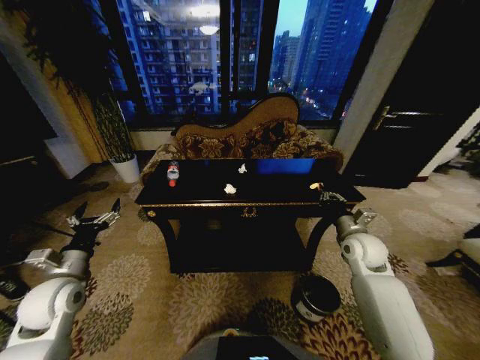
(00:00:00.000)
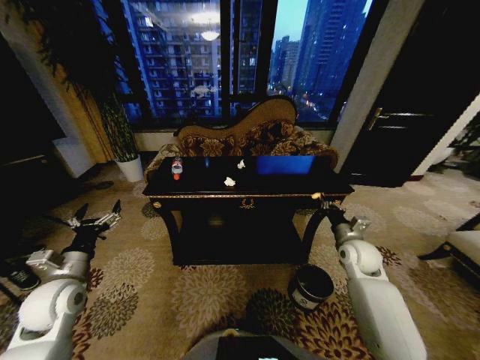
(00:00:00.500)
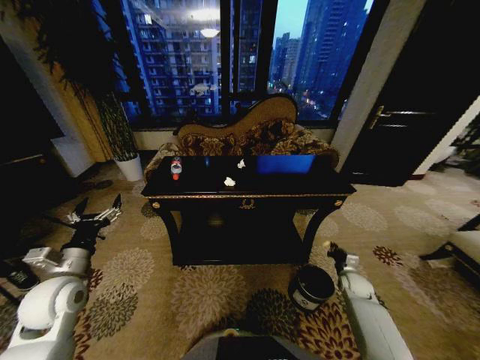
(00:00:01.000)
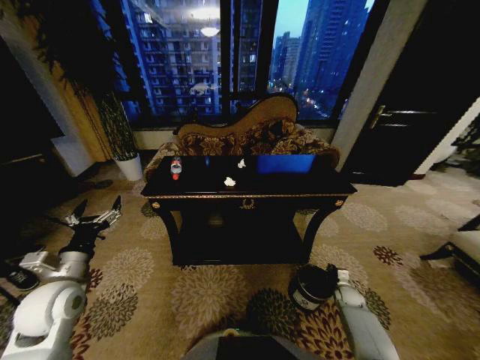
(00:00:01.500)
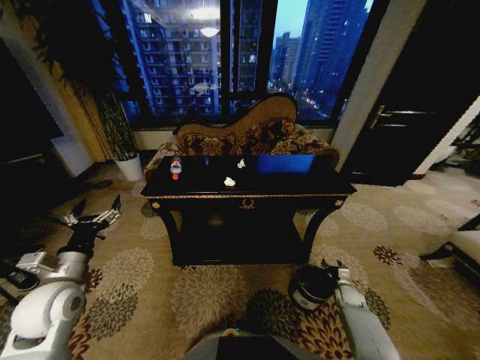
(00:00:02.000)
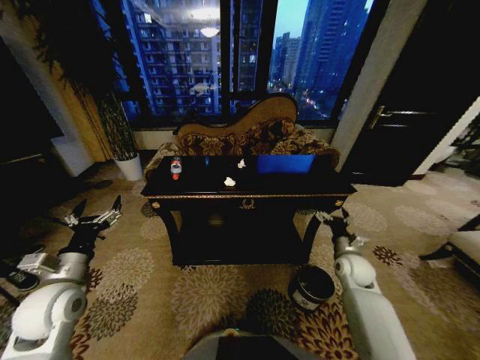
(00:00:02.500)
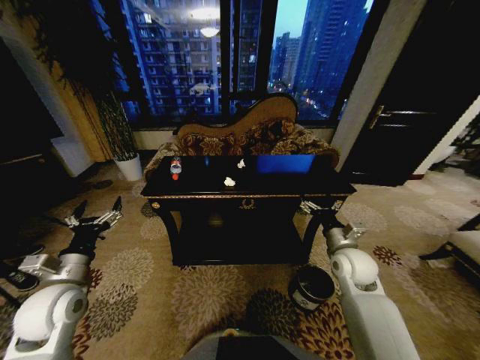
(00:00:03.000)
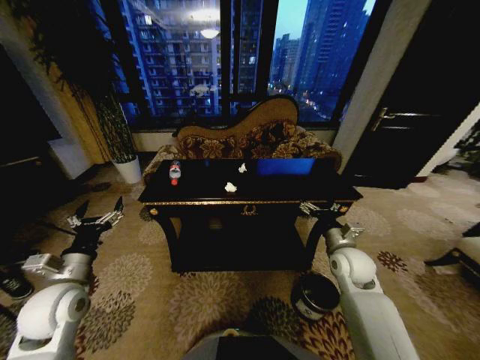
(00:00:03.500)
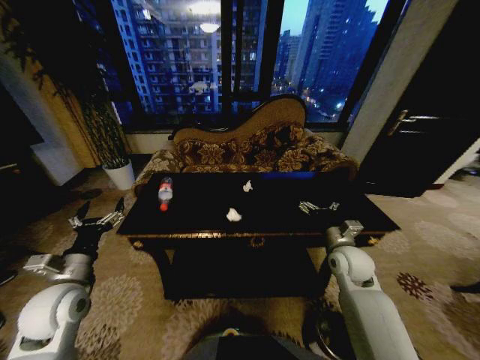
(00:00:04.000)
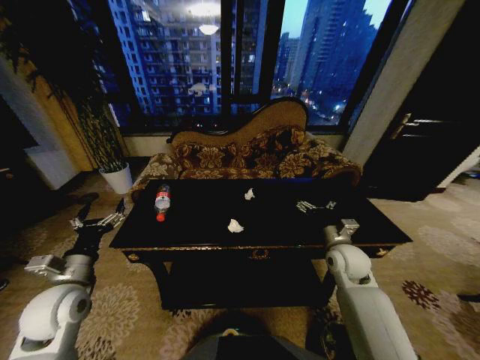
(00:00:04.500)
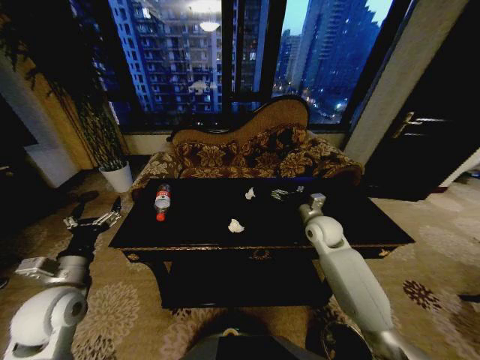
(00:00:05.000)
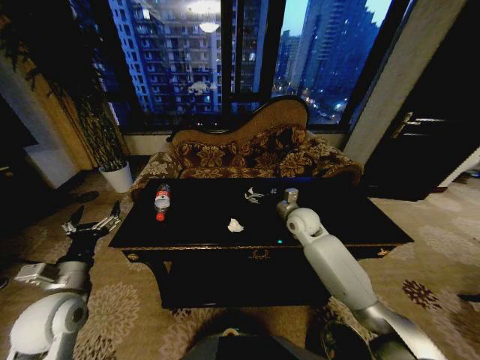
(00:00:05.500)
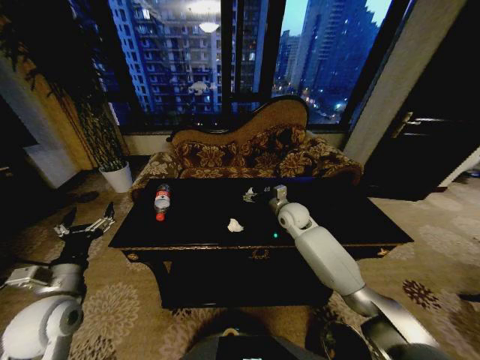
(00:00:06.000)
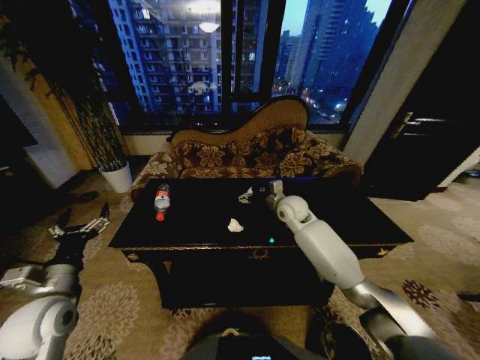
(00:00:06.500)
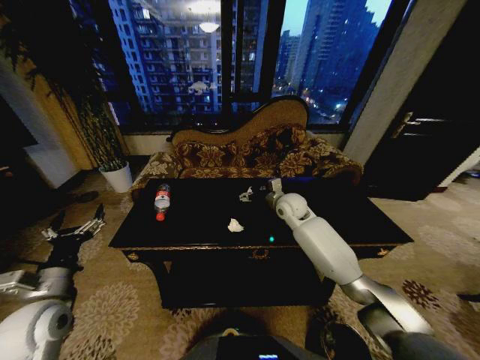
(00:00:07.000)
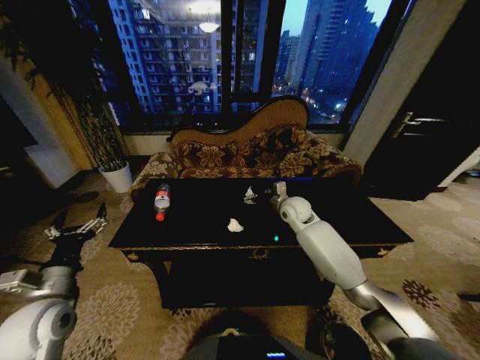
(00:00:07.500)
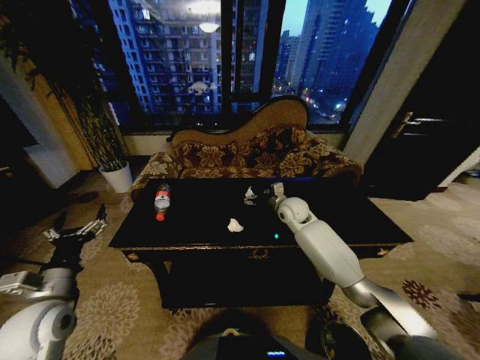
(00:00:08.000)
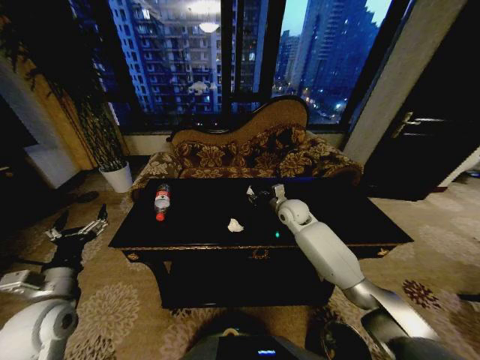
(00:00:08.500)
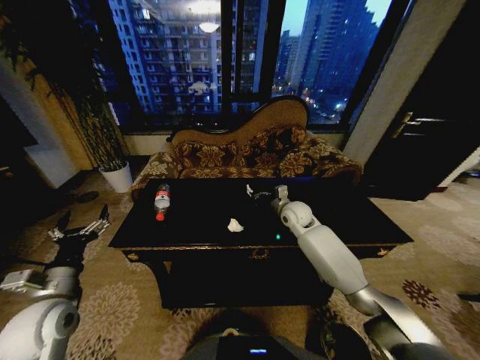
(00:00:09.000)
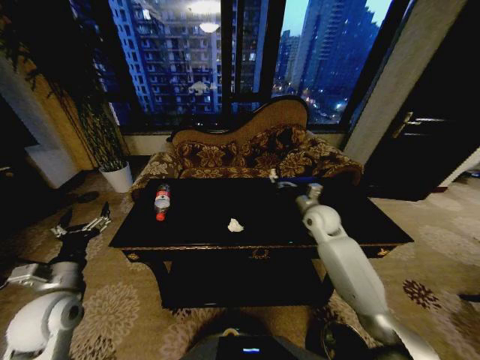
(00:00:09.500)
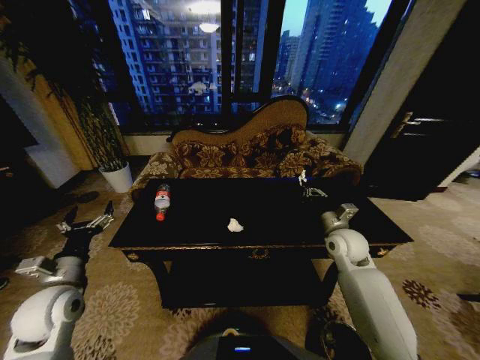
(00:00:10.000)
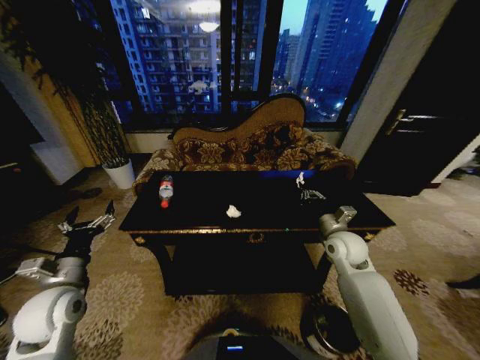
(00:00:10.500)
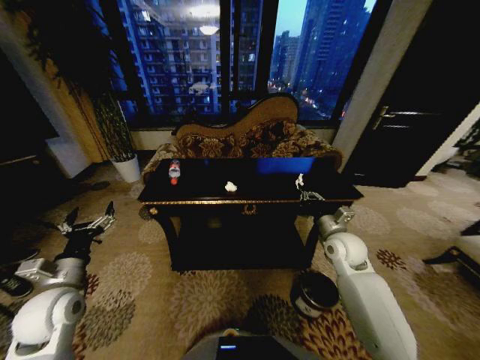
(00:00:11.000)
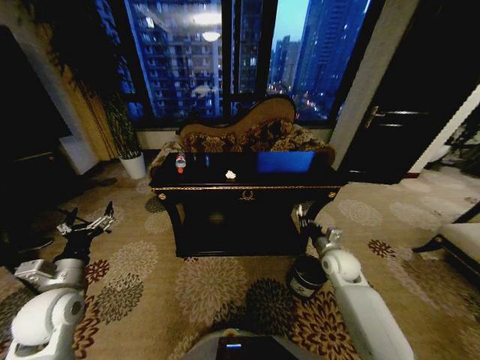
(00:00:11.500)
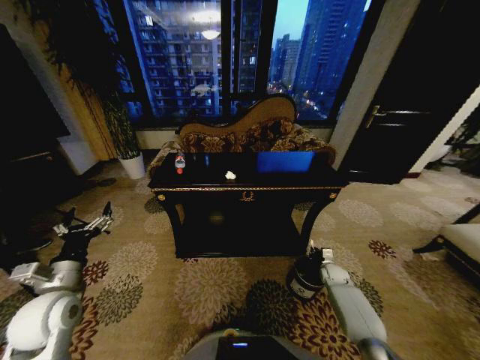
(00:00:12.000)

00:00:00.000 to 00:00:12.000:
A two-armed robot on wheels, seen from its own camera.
Task of the whole recording: Move to the front of the table and place the trash on the table into the trash bin.
00:00:00.000 to 00:00:02.000: The right gripper moves downward, roughly 30 cm, and opens.
00:00:02.000 to 00:00:04.000: The right gripper goes approximately 30 cm upward and to the left, and opens its fingers.
00:00:04.000 to 00:00:06.000: The right gripper is displaced forward and to the left by approximately 20 cm.
00:00:06.000 to 00:00:08.000: The grippers move only a little.
00:00:08.000 to 00:00:10.000: The right gripper moves backward and to the right, approximately 20 cm, and closes.
00:00:10.000 to 00:00:12.000: The right gripper heads downward, covering roughly 25 cm.

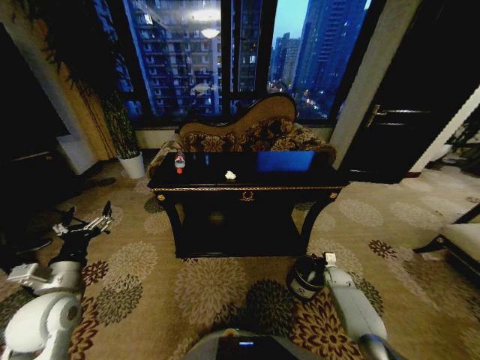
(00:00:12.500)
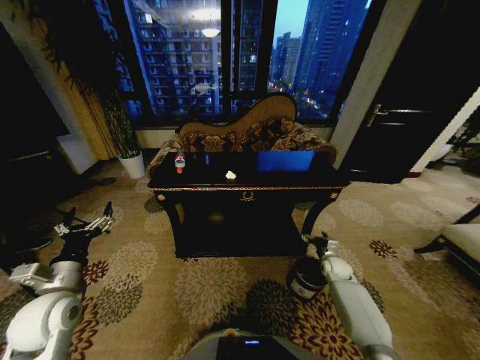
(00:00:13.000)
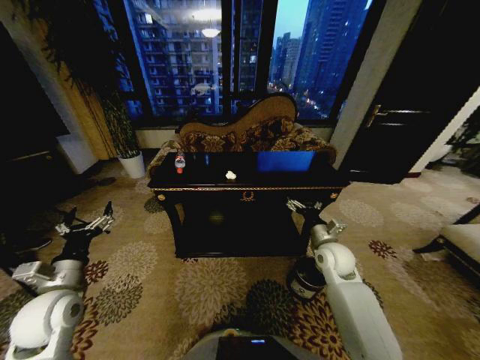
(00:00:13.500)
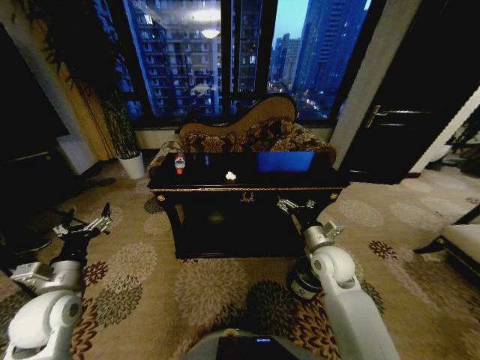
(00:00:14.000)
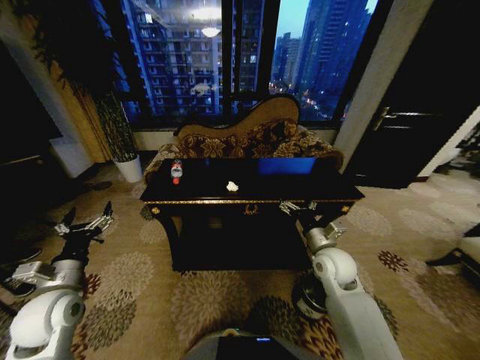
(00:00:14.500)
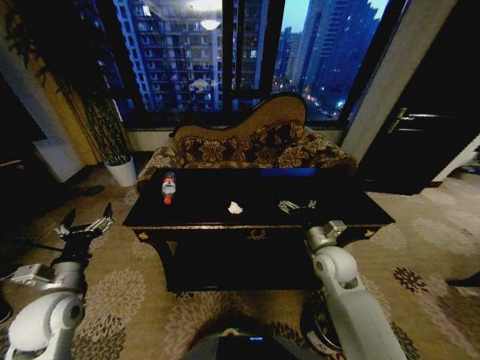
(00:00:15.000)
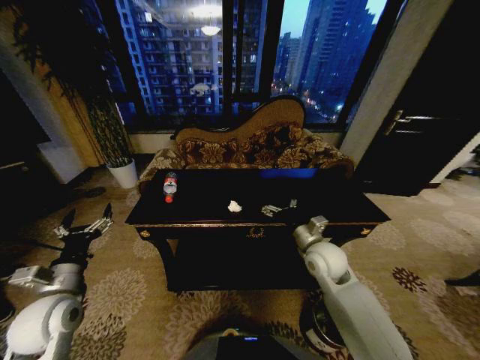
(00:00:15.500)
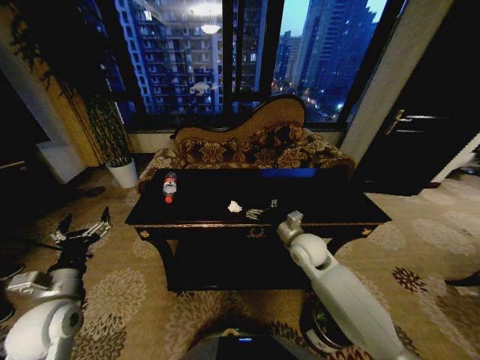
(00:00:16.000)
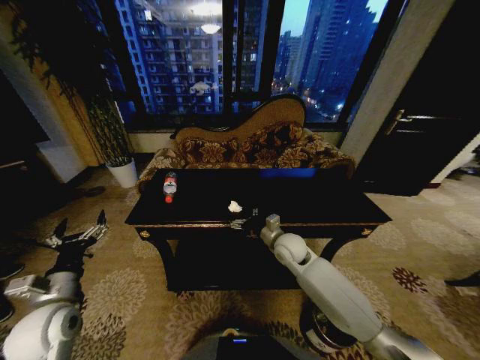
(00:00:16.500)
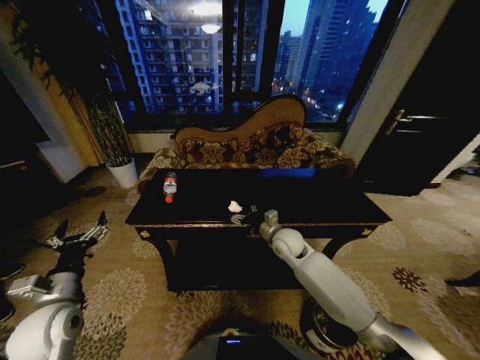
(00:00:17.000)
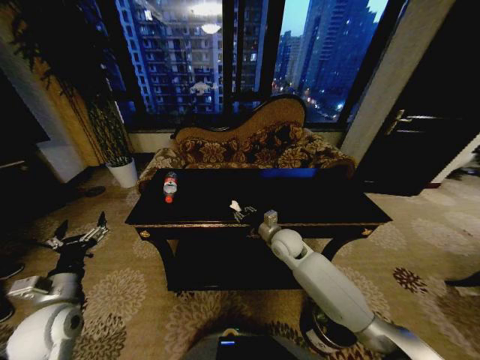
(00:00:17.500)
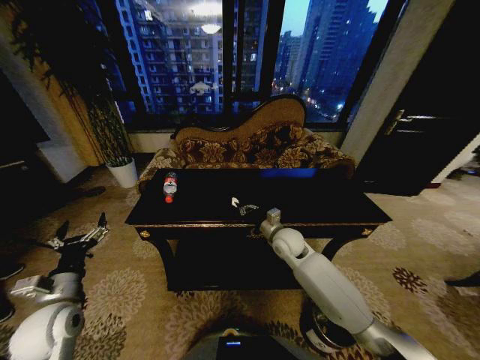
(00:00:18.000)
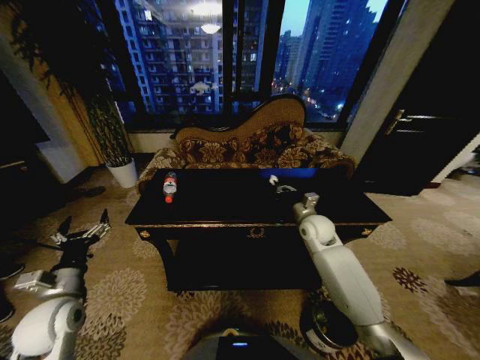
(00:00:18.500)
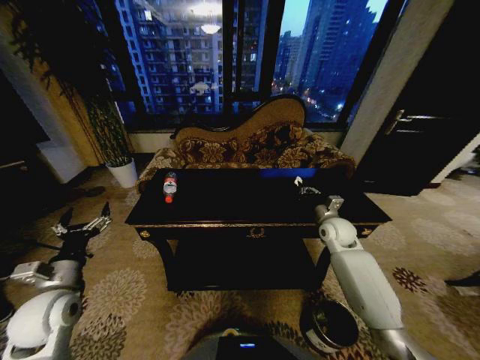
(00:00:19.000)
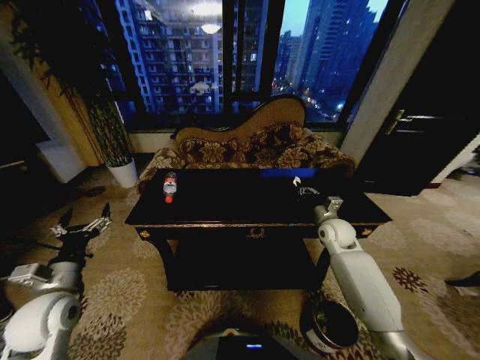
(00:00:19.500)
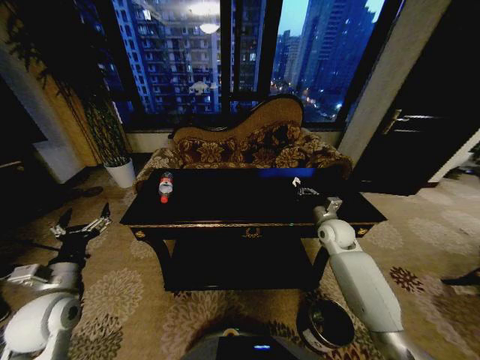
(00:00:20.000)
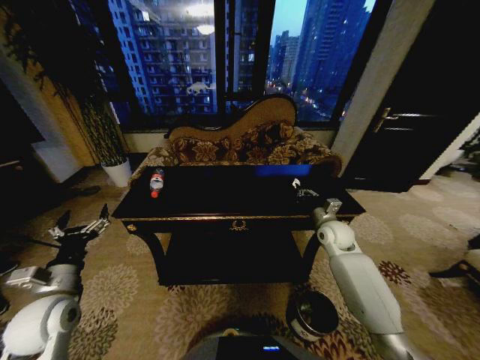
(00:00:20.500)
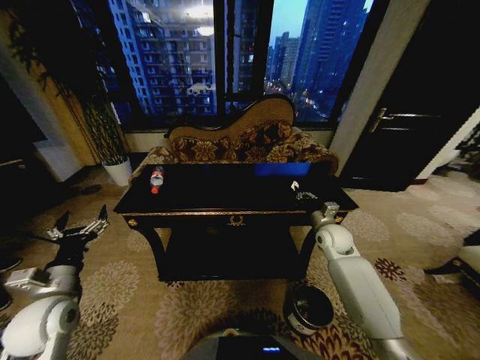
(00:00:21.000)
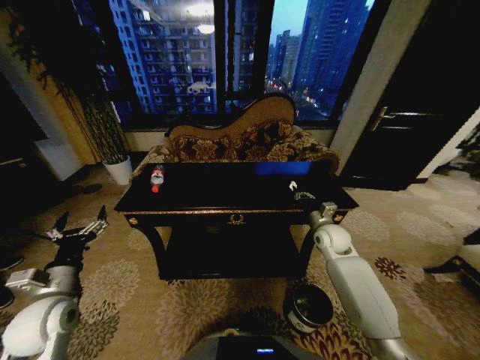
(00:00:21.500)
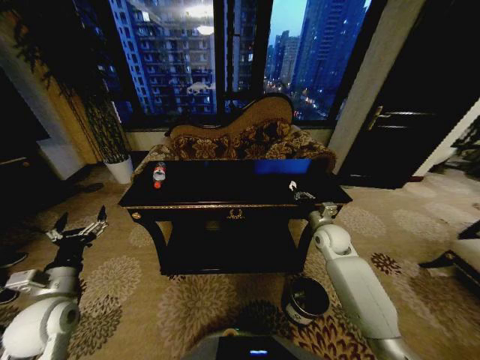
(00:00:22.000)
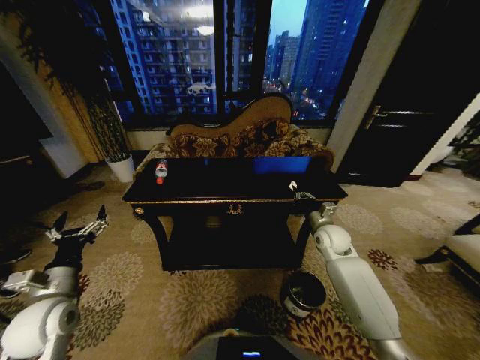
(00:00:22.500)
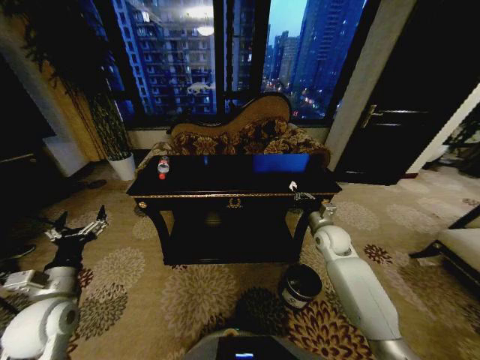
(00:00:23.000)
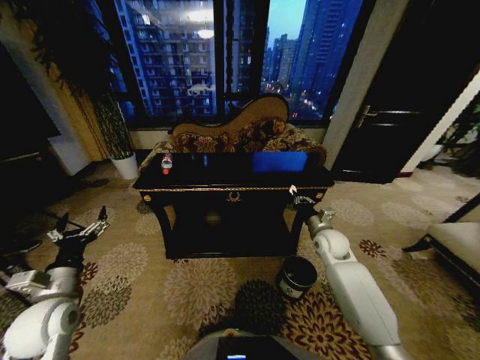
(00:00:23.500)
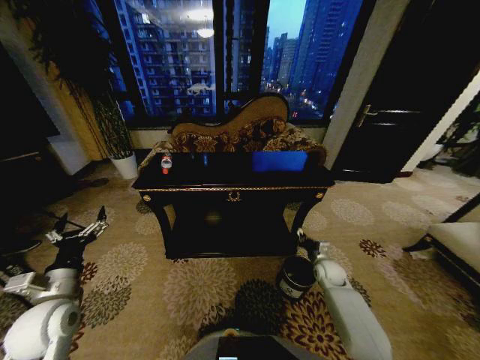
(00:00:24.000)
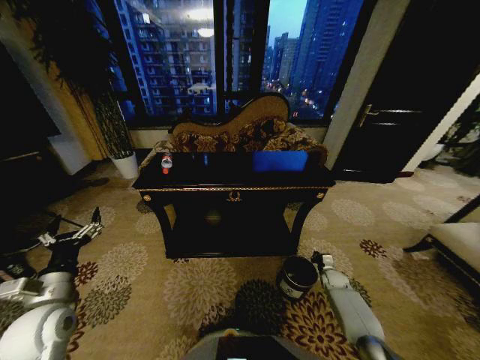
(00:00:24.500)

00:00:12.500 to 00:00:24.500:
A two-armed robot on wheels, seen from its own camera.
Task of the whole recording: Move to the front of the table and place the trash on the table into the trash bin.
00:00:12.500 to 00:00:14.500: The right gripper heads upward and to the left, covering about 30 cm, and opens.
00:00:14.500 to 00:00:16.500: The right gripper goes roughly 10 cm to the left and forward.
00:00:16.500 to 00:00:18.500: The right gripper moves to the right and forward, approximately 10 cm, and closes.
00:00:18.500 to 00:00:20.500: The right gripper is displaced to the right by roughly 5 cm.
00:00:22.500 to 00:00:24.500: The right gripper heads downward and to the right, covering some 30 cm.

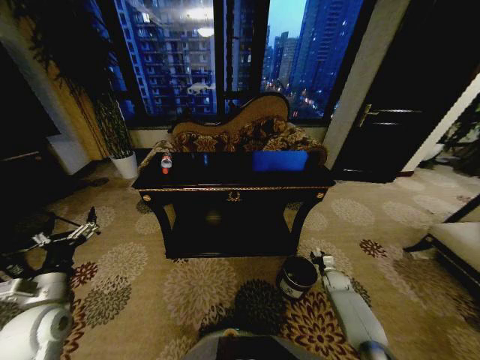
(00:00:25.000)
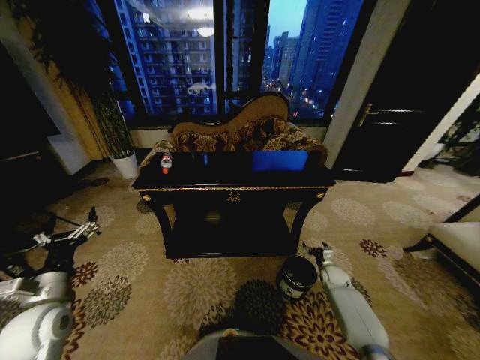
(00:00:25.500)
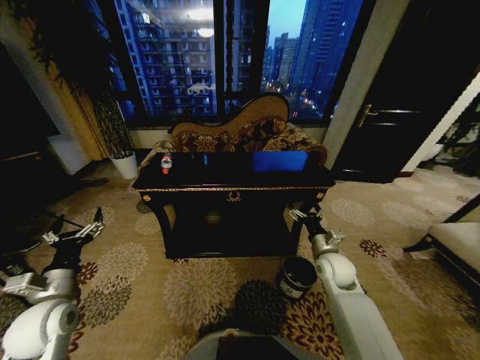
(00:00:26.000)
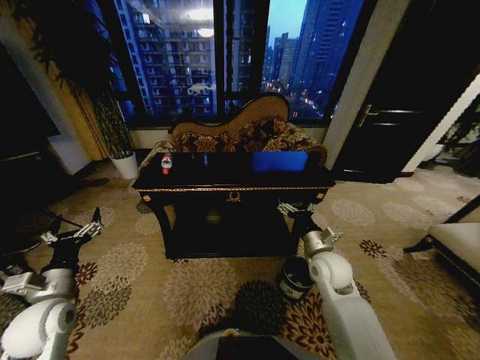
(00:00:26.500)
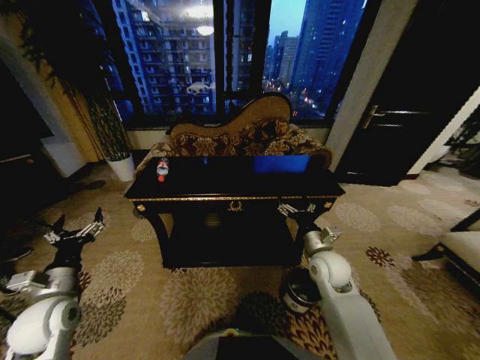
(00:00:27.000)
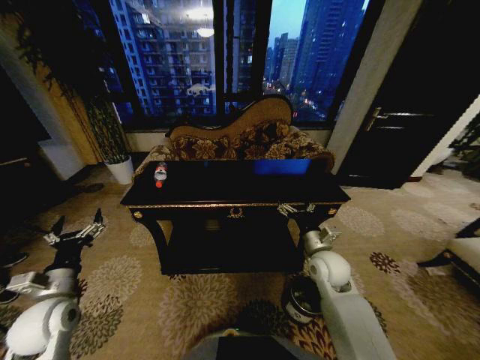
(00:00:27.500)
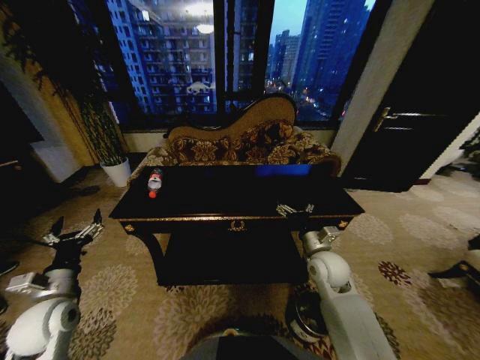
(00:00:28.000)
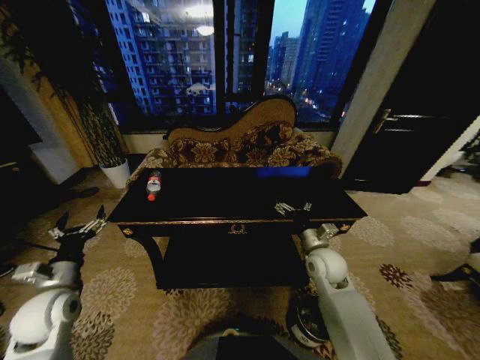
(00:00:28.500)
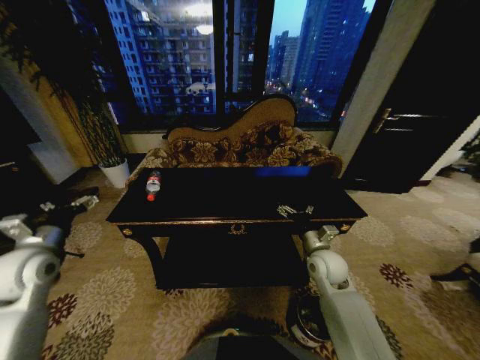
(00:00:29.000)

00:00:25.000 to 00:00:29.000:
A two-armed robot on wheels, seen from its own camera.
Task of the whole recording: Move to the front of the table and place the trash on the table into the trash bin.
00:00:25.000 to 00:00:27.000: The right gripper is displaced upward and to the left by approximately 30 cm, and opens.
00:00:27.000 to 00:00:29.000: The left gripper is displaced upward and forward by about 10 cm.
